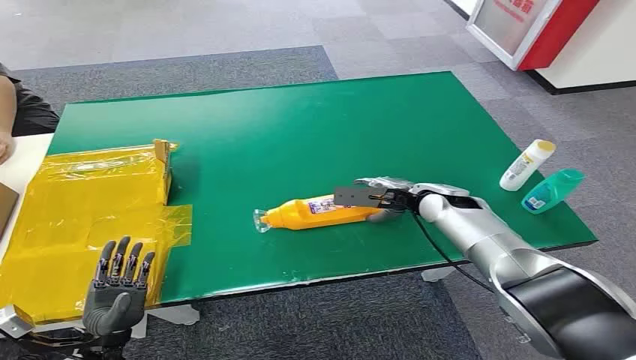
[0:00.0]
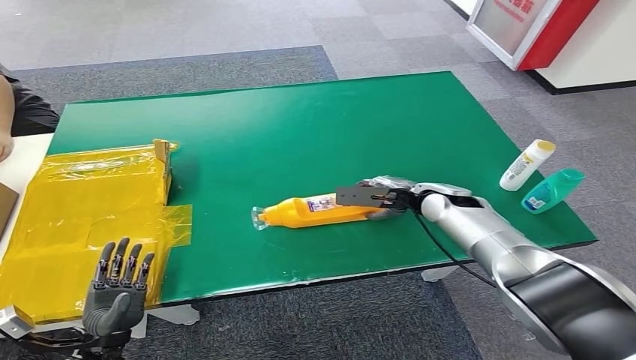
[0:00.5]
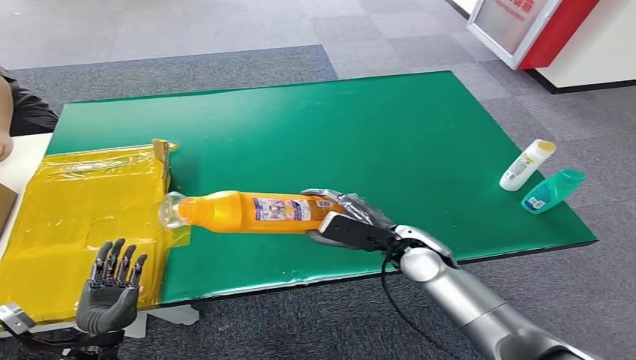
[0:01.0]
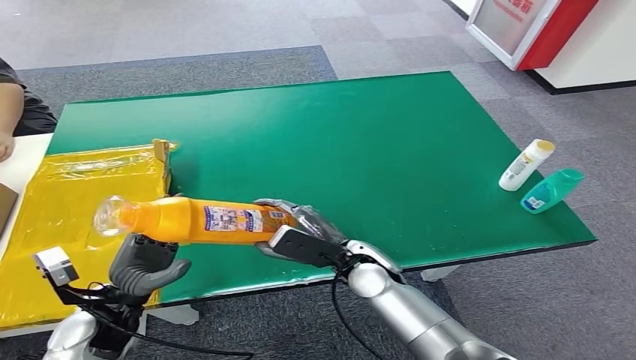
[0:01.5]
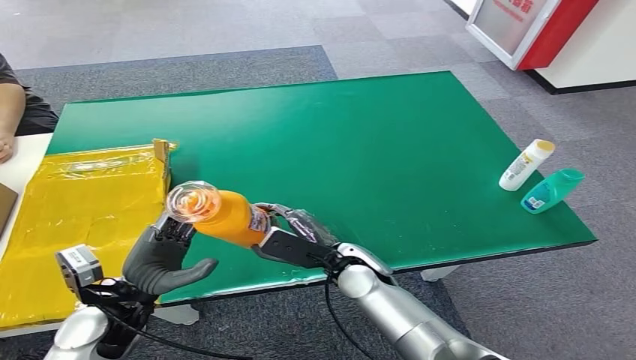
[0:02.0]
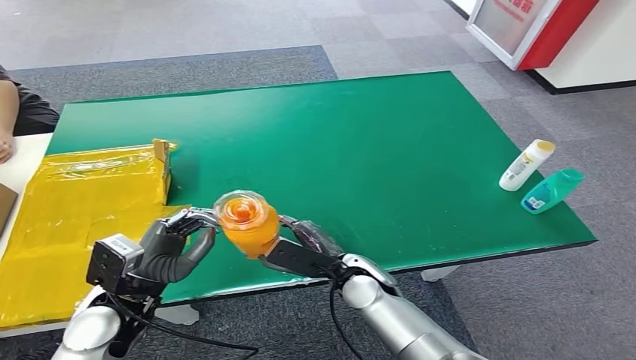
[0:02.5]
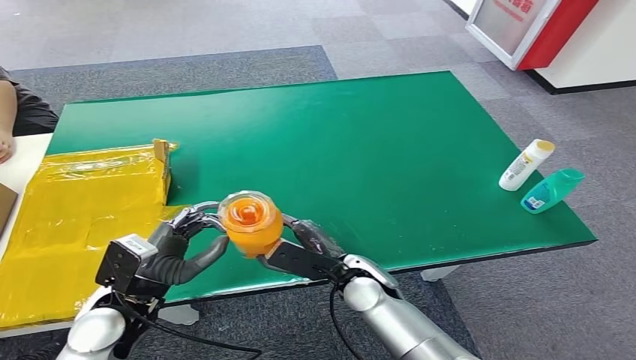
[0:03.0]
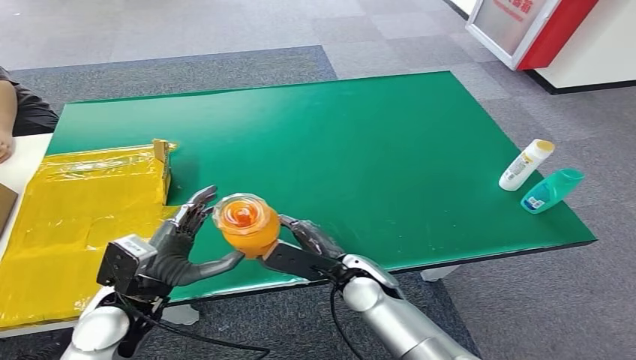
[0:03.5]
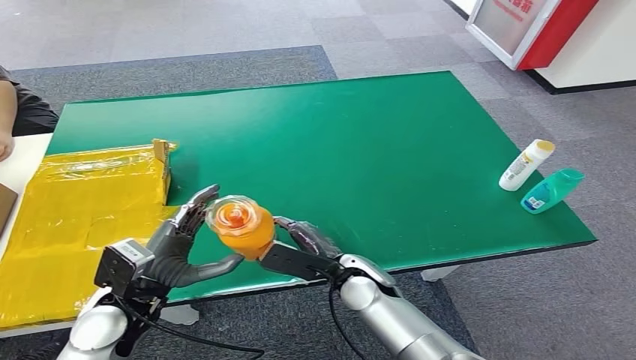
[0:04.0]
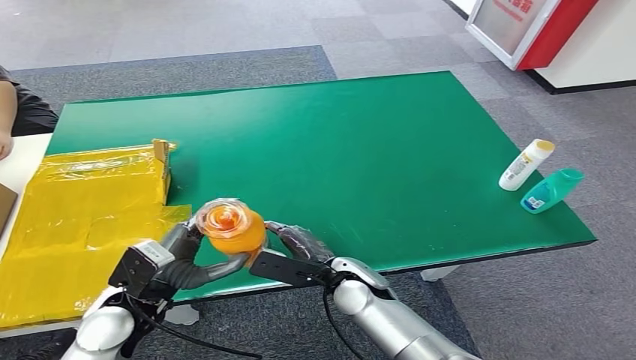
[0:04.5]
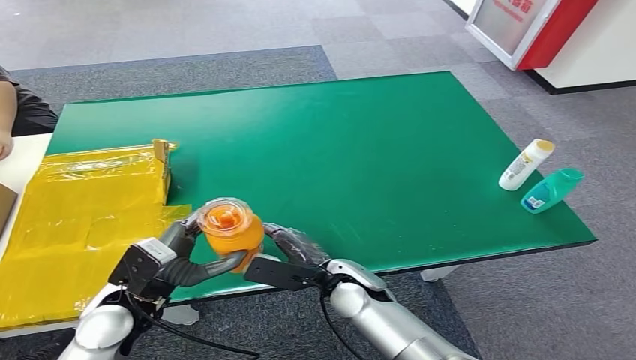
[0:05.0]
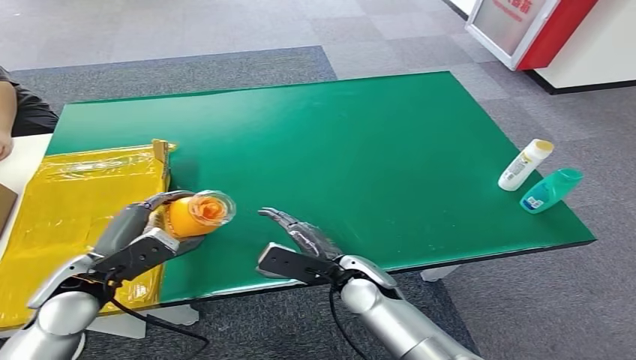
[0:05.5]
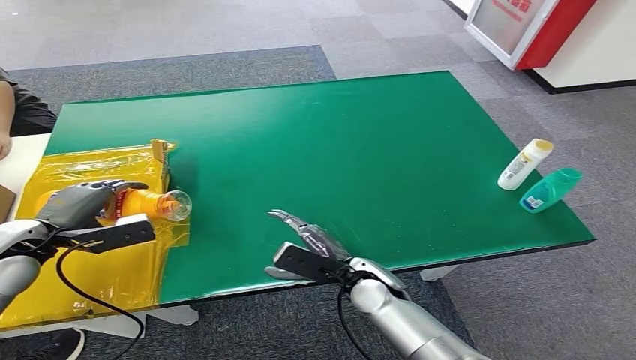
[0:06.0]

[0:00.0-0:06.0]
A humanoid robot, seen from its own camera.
Step, 0:00.0 to 0:02.0: Pick up the bottle from the table.
Step, 0:02.5 to 0:06.0: Turn the bottle to the front side.
0:04.0 to 0:06.0: The left hand moves to the left and forward, about 15 cm.
